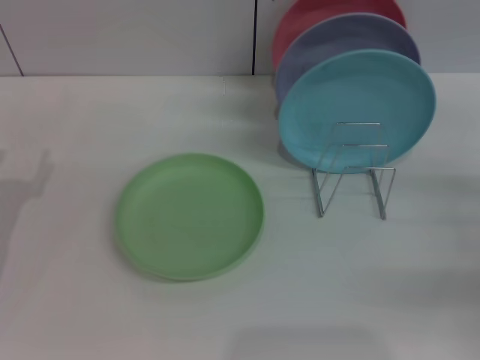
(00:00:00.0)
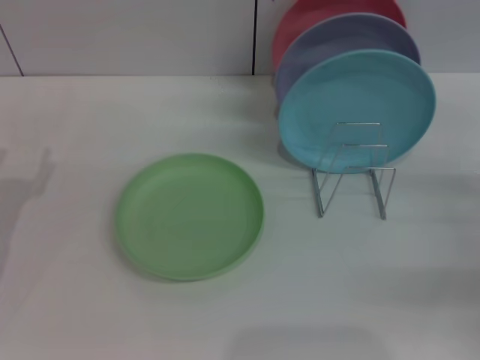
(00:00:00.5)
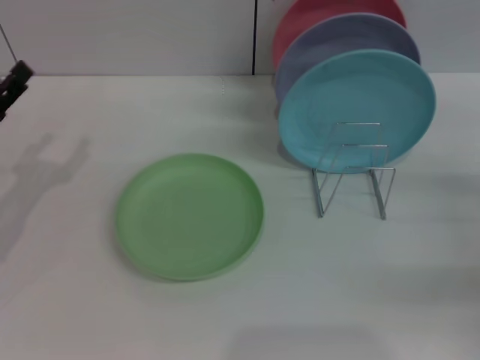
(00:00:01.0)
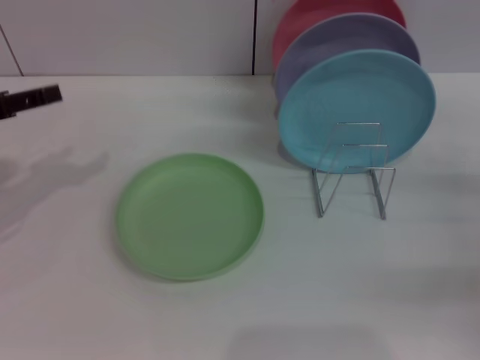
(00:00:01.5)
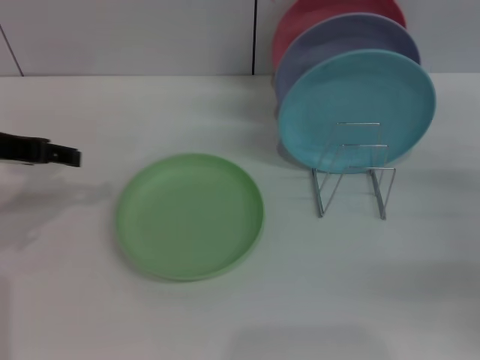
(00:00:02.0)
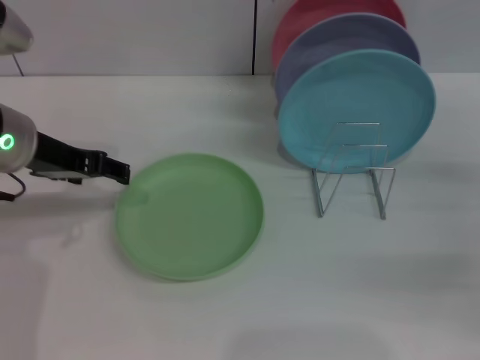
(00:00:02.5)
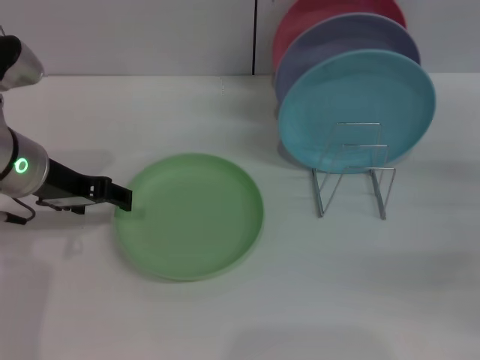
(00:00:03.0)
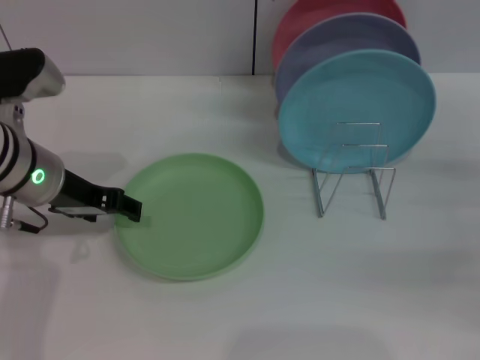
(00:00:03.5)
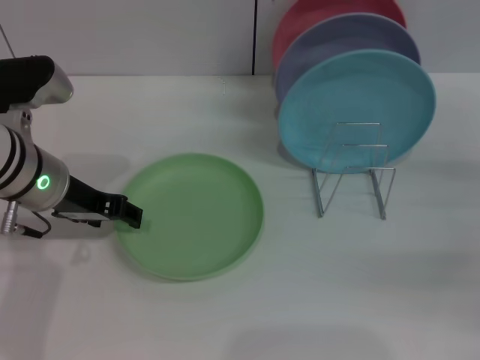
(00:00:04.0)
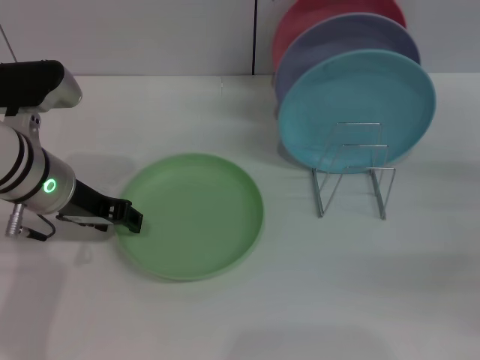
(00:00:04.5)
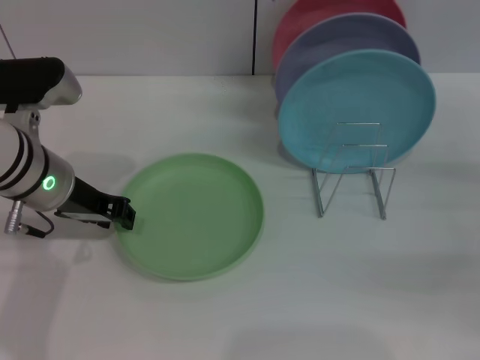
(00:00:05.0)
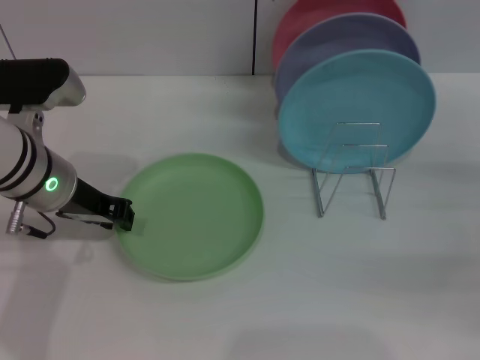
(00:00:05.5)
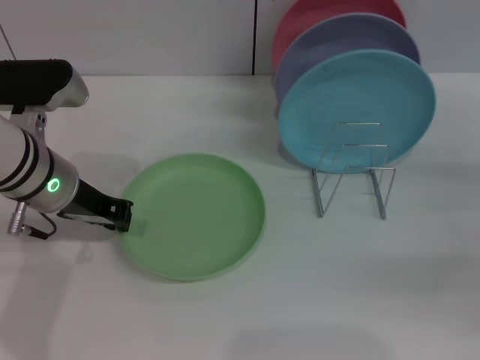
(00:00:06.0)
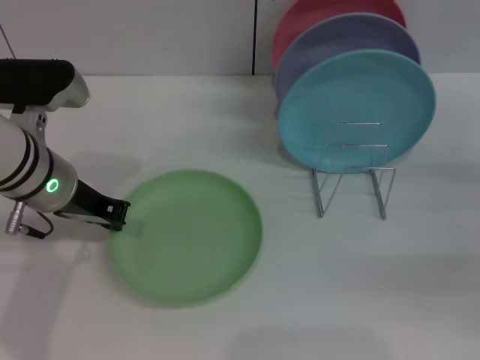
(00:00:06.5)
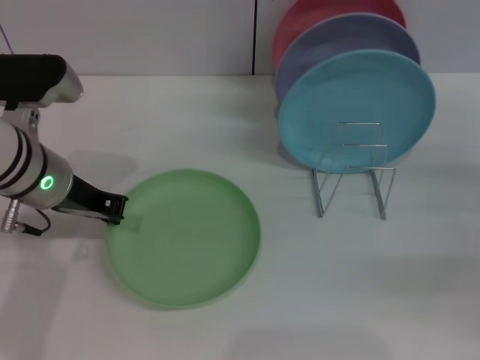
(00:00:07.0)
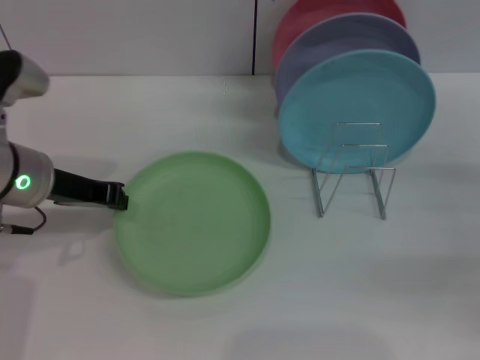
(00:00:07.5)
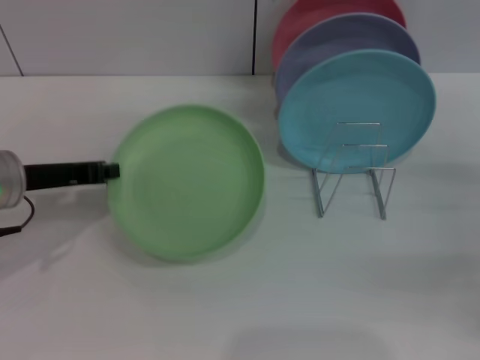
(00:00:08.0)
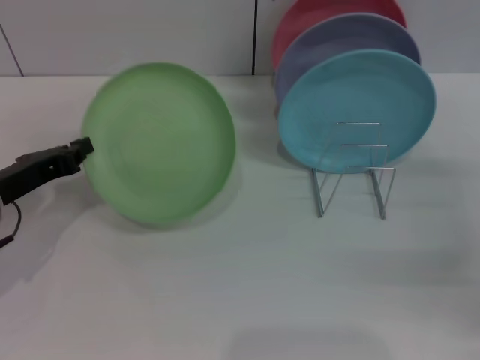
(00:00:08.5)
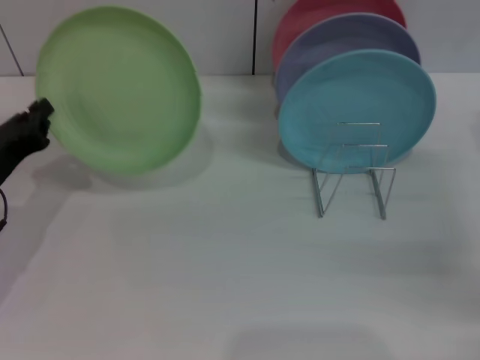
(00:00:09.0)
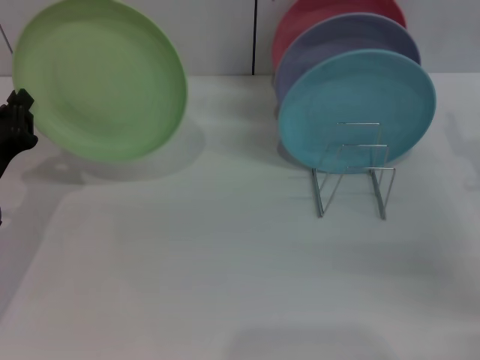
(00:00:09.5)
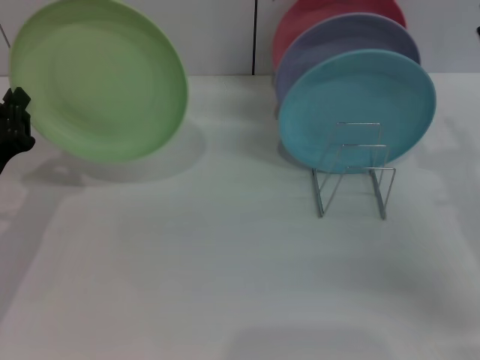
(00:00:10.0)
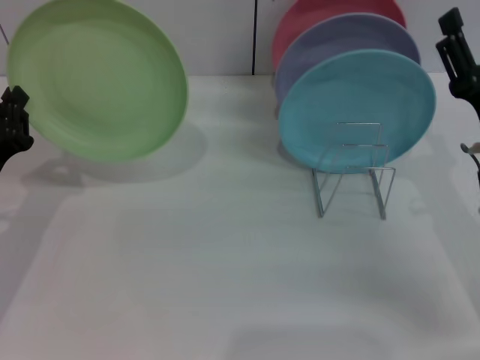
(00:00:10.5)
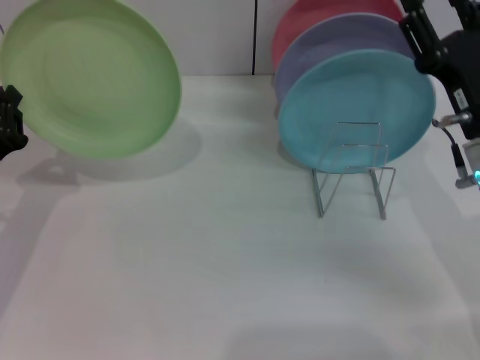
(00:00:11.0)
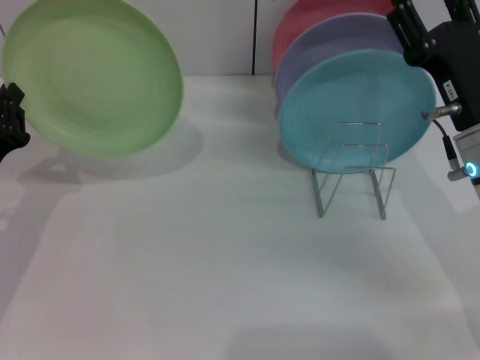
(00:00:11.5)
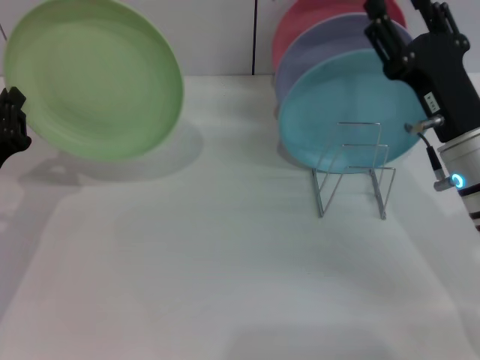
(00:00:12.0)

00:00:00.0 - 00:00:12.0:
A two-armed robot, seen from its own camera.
Task of the whole recording: Grip the plate with one hand, pass it to the other, then set it on the shelf.
Step, 00:00:00.0 - 00:00:08.5: Pick up the plate with the left gripper.
00:00:00.0 - 00:00:02.0: The left gripper is displaced upward and forward by approximately 15 cm.
00:00:02.0 - 00:00:04.0: The left gripper travels to the right and downward by some 10 cm.
00:00:04.0 - 00:00:06.0: The left gripper closes up.
00:00:06.0 - 00:00:08.0: The left gripper shifts approximately 5 cm to the left.
00:00:08.0 - 00:00:10.0: The left gripper shifts roughly 5 cm downward. Meanwhile the right gripper travels to the left by about 10 cm.
00:00:10.0 - 00:00:12.0: The right gripper is displaced to the left by roughly 5 cm.

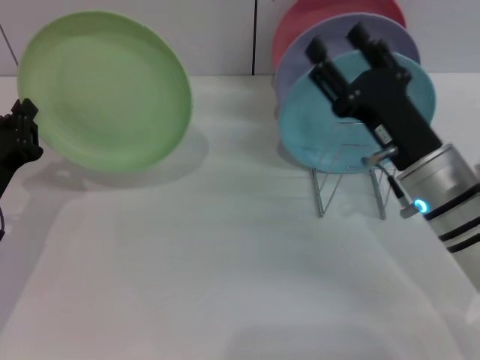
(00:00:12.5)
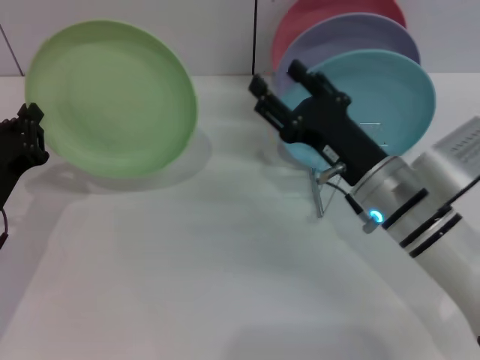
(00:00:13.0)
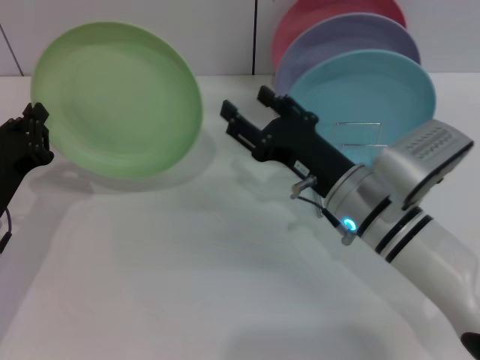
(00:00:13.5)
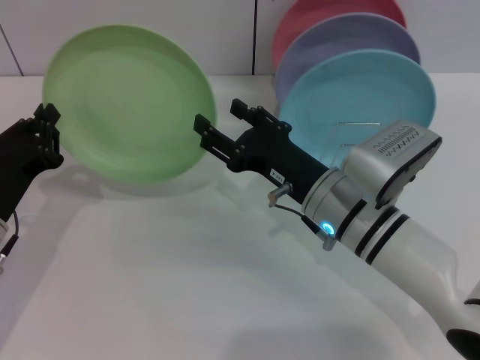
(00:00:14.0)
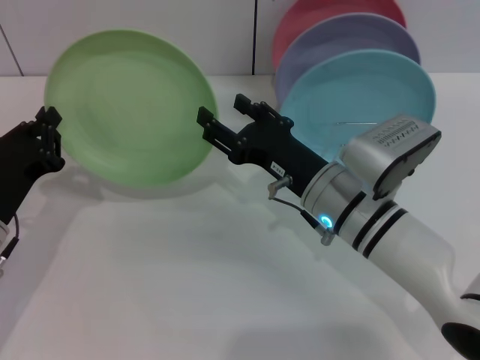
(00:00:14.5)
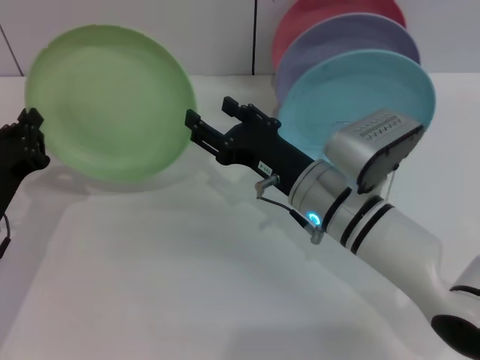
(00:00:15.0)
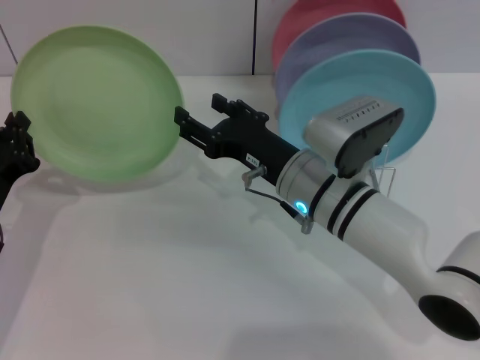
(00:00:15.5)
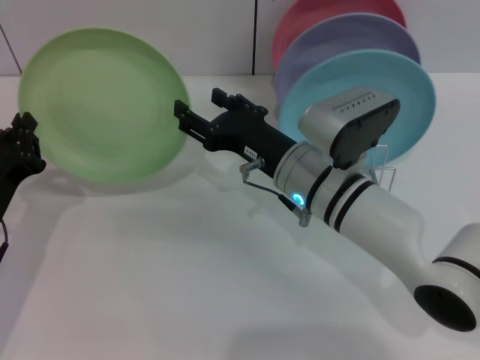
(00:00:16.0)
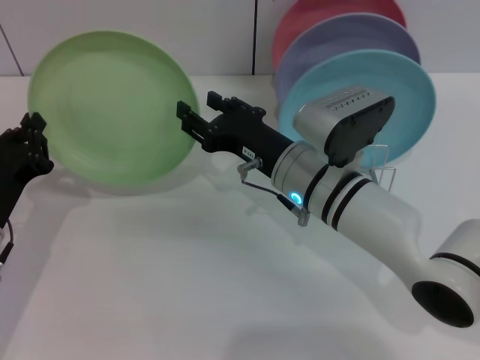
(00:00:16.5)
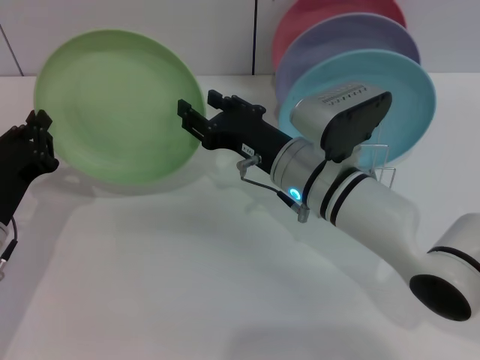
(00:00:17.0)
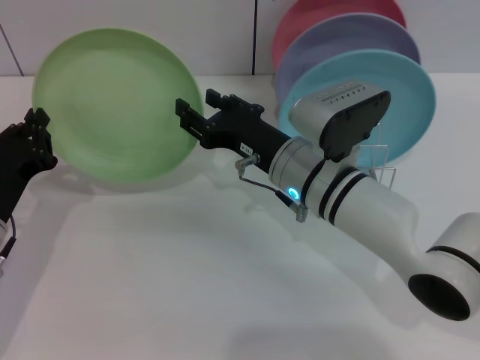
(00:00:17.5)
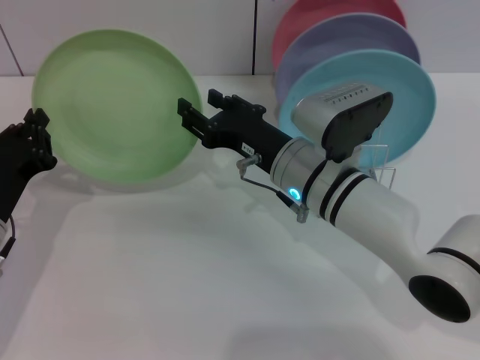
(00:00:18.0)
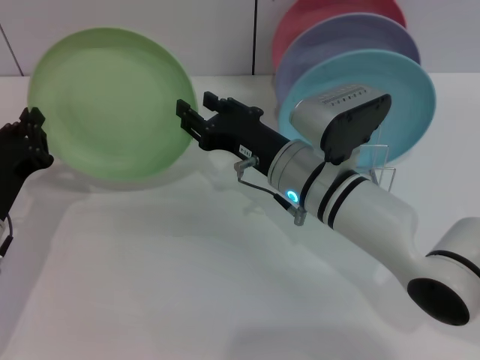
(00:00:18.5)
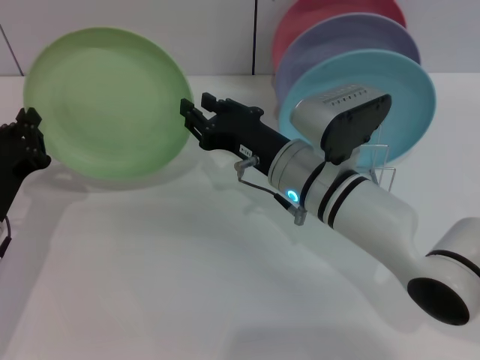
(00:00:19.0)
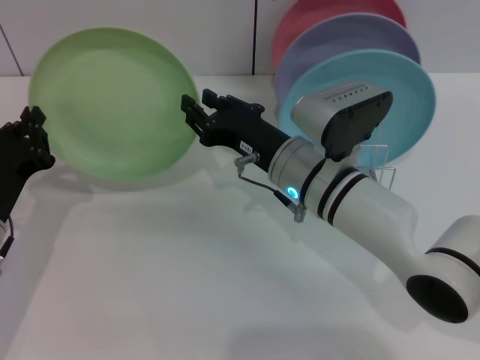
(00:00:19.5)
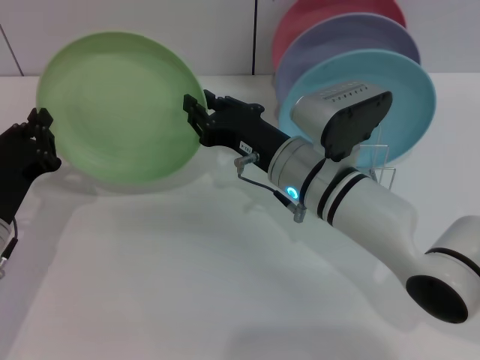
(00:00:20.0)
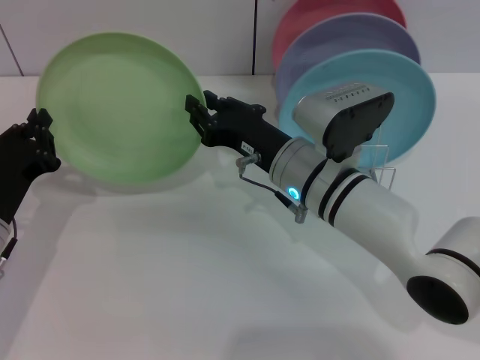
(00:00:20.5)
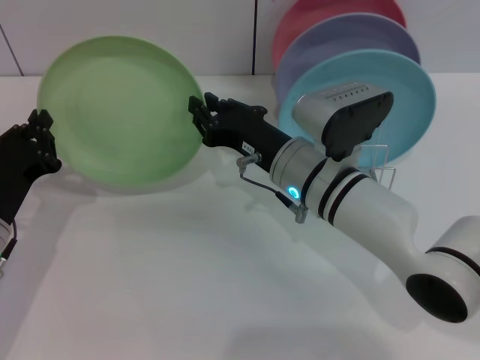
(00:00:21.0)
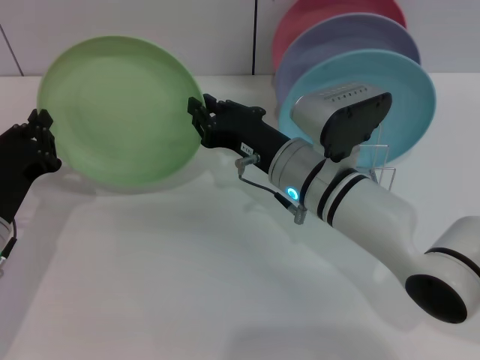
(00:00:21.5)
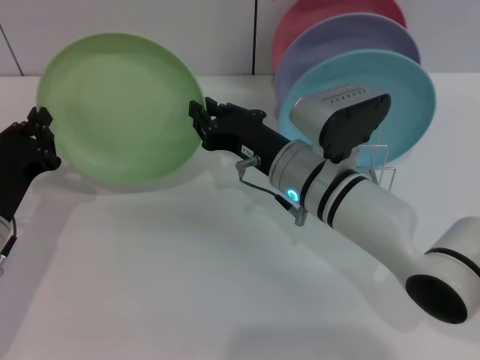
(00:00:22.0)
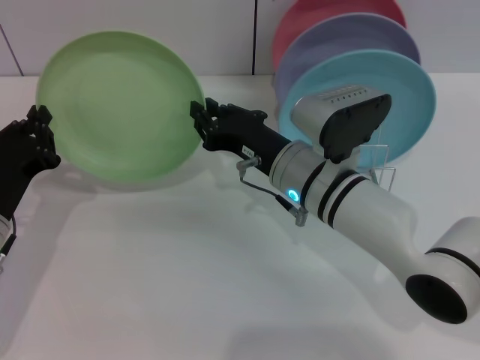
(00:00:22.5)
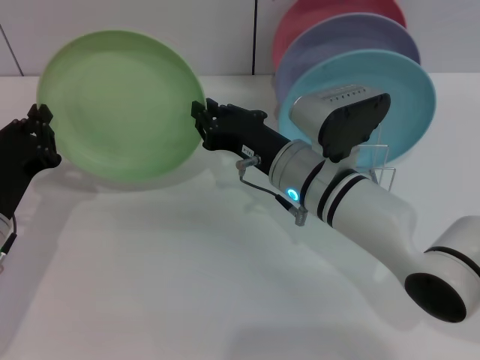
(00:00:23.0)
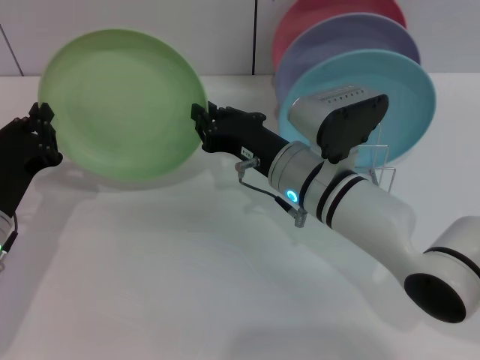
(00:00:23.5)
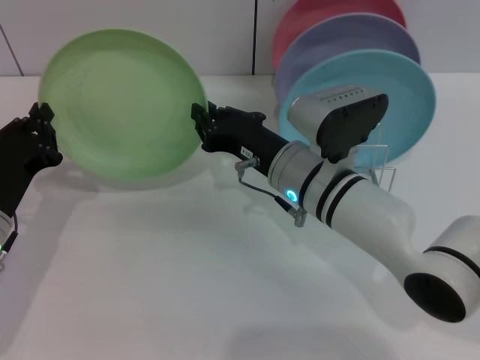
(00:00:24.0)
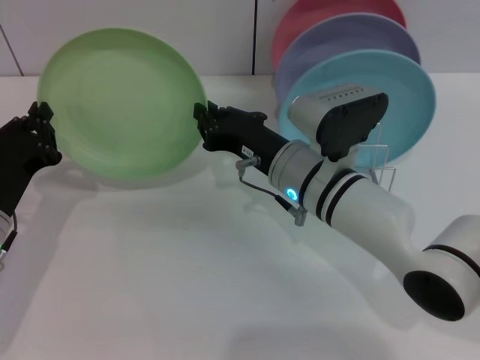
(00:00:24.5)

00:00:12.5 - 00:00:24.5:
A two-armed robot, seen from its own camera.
Task of the whole recording: Grip the plate with one hand, pass it to the other, then set it on the shelf.
00:00:12.5 - 00:00:14.5: The right gripper goes roughly 10 cm to the left.
00:00:14.5 - 00:00:16.5: The grippers stay close to where they were, moving slightly.
00:00:16.5 - 00:00:18.5: Both grippers stay about where they are.
00:00:18.5 - 00:00:20.5: The right gripper closes up.
00:00:20.5 - 00:00:24.5: Both grippers stay about where they are.

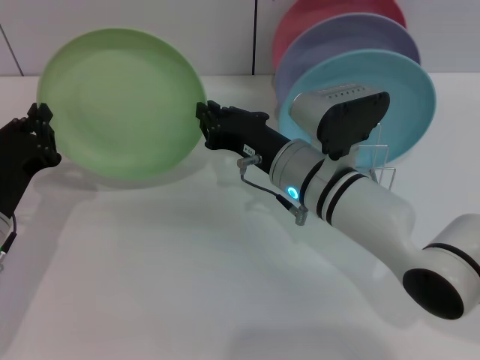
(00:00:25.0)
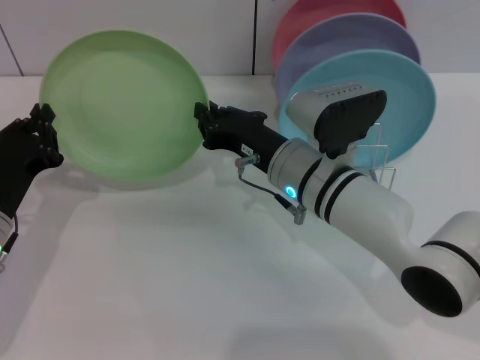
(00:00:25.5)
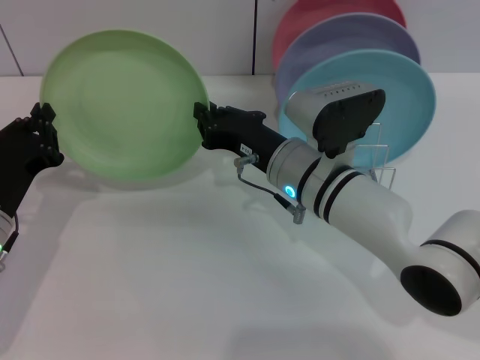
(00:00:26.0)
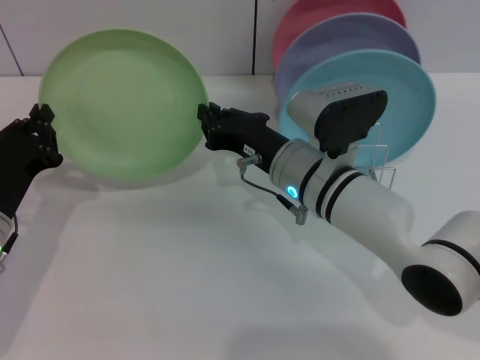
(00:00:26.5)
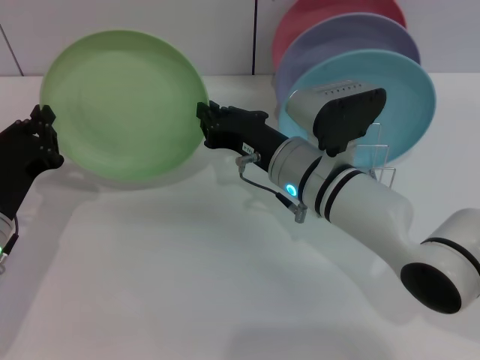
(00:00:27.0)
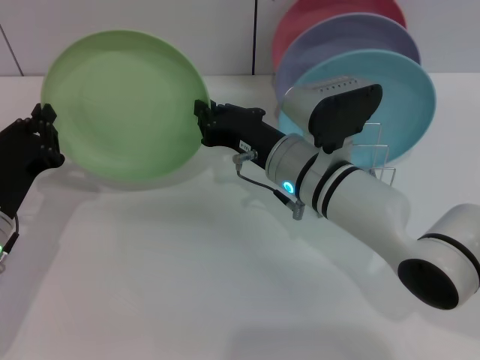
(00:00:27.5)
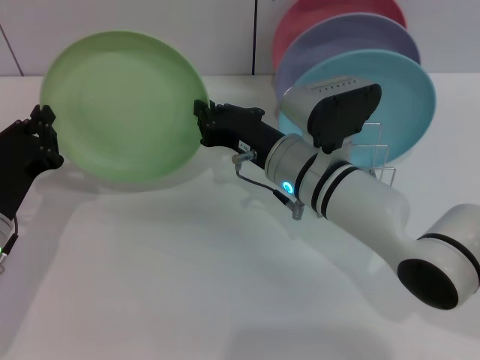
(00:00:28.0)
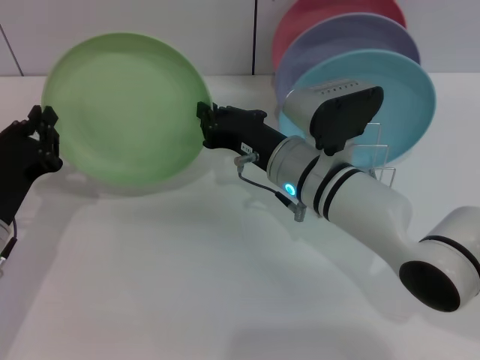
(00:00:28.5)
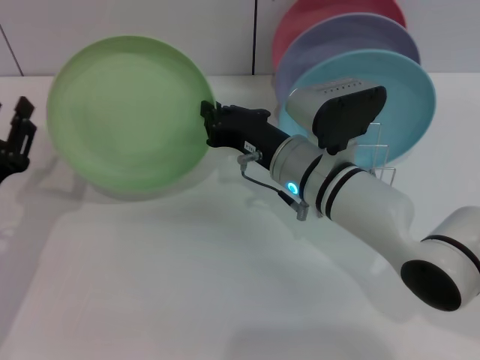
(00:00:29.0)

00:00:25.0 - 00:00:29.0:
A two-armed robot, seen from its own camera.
Task of the whole recording: Grip the plate with one hand, pass it to the other, then set it on the shelf.
Step, 00:00:25.0 - 00:00:28.5: Pass the plate from the left gripper to the right gripper.
00:00:25.0 - 00:00:27.0: Neither gripper changes place.
00:00:27.0 - 00:00:29.0: The grippers stay close to where they were, moving slightly.
